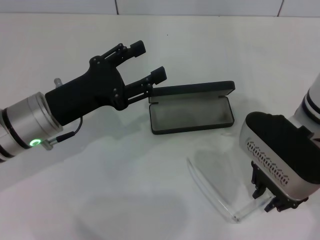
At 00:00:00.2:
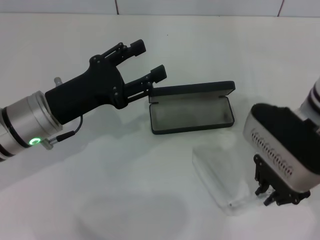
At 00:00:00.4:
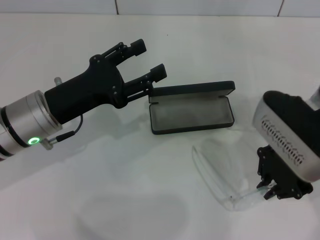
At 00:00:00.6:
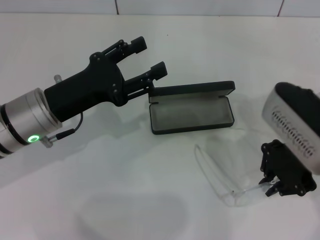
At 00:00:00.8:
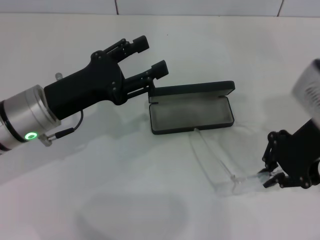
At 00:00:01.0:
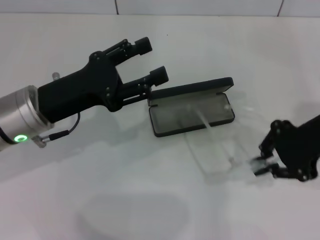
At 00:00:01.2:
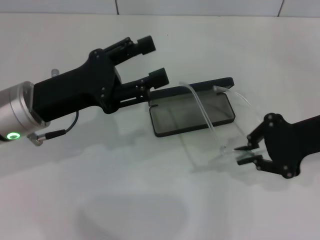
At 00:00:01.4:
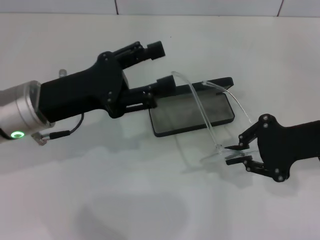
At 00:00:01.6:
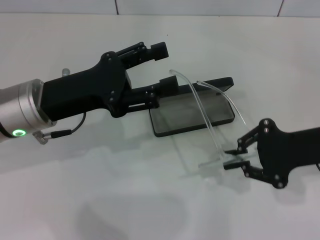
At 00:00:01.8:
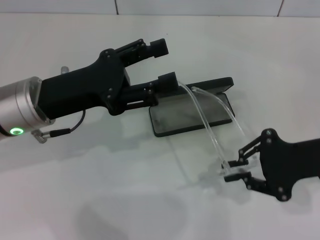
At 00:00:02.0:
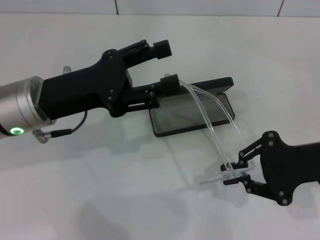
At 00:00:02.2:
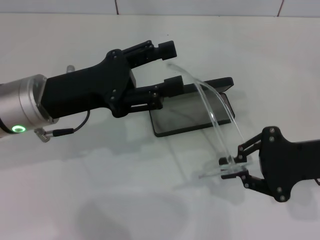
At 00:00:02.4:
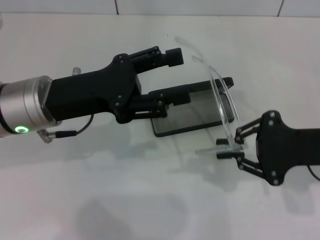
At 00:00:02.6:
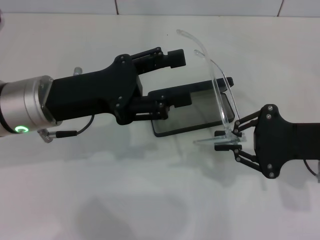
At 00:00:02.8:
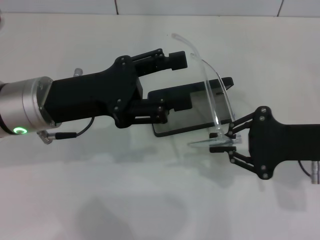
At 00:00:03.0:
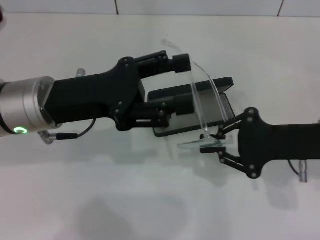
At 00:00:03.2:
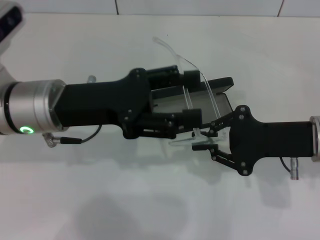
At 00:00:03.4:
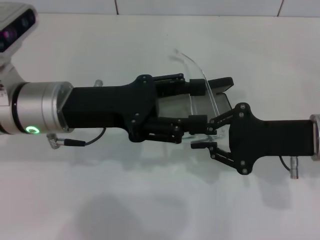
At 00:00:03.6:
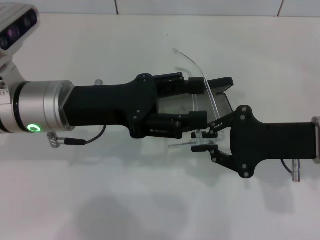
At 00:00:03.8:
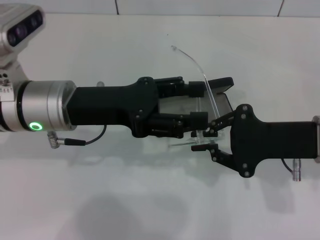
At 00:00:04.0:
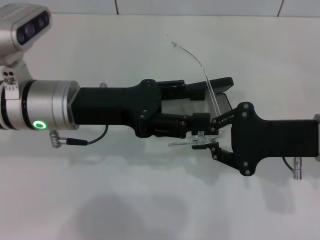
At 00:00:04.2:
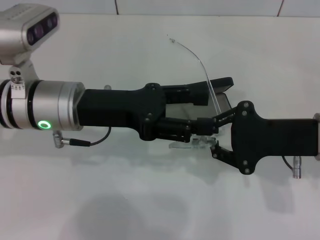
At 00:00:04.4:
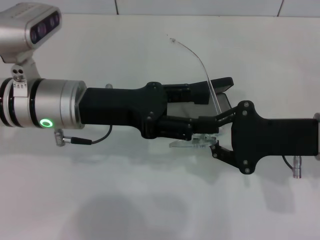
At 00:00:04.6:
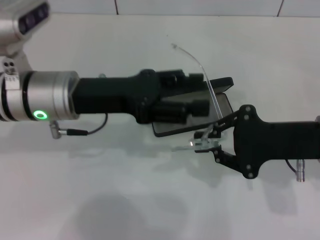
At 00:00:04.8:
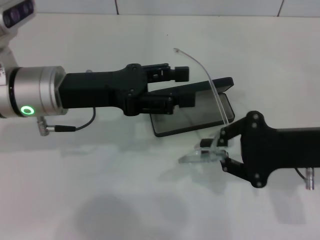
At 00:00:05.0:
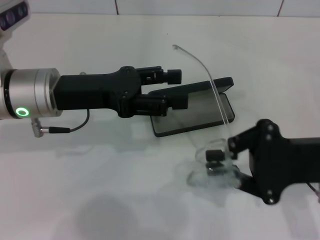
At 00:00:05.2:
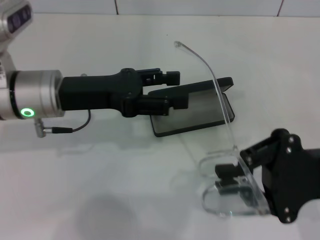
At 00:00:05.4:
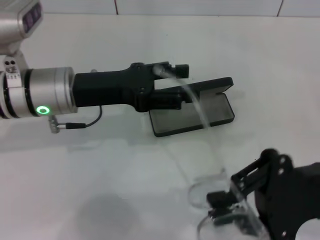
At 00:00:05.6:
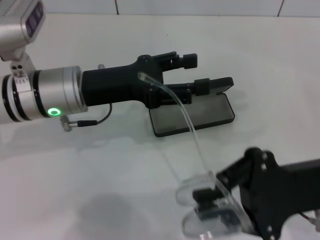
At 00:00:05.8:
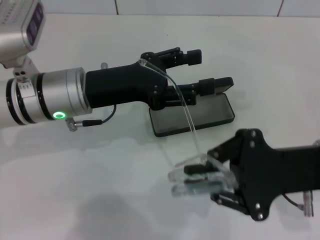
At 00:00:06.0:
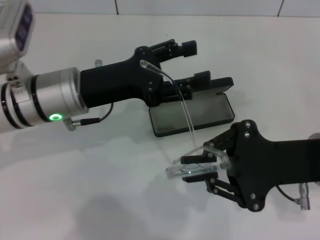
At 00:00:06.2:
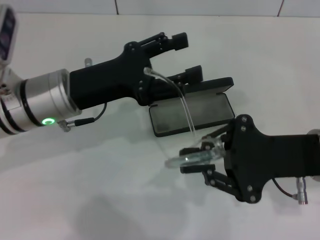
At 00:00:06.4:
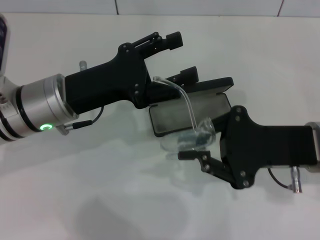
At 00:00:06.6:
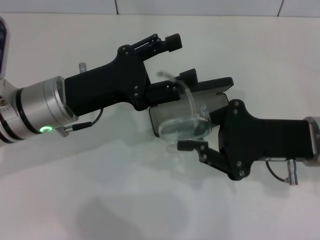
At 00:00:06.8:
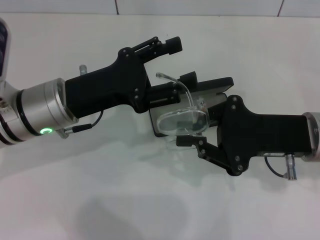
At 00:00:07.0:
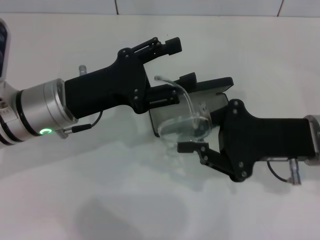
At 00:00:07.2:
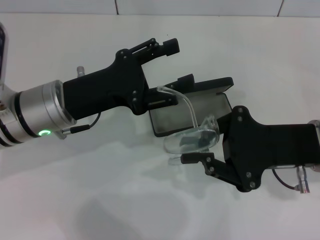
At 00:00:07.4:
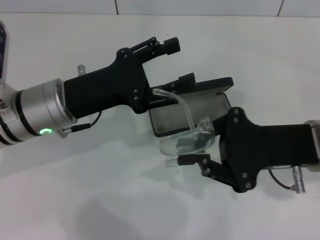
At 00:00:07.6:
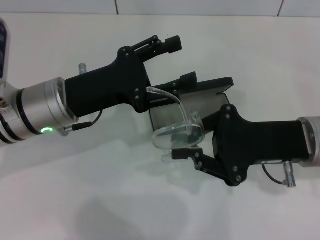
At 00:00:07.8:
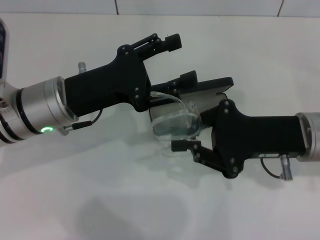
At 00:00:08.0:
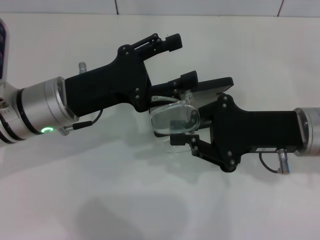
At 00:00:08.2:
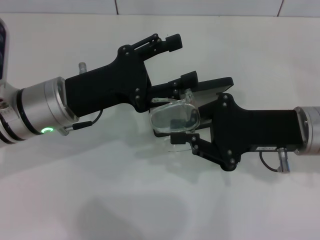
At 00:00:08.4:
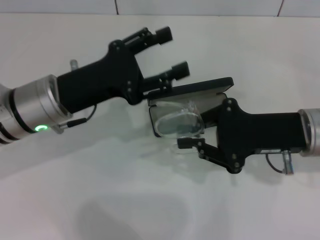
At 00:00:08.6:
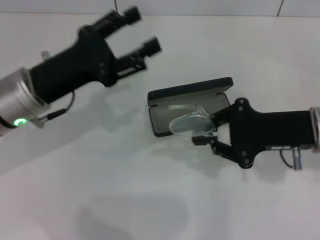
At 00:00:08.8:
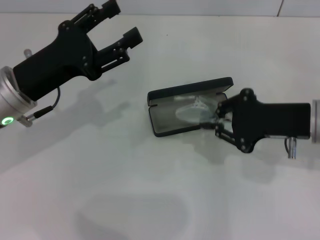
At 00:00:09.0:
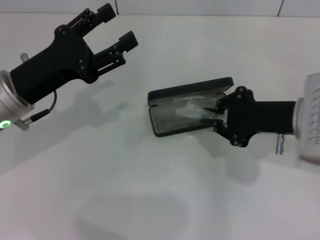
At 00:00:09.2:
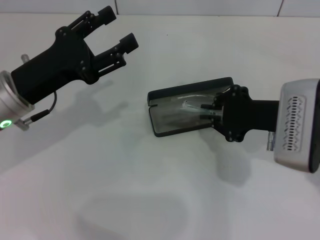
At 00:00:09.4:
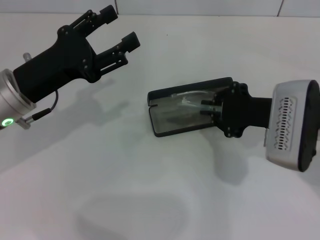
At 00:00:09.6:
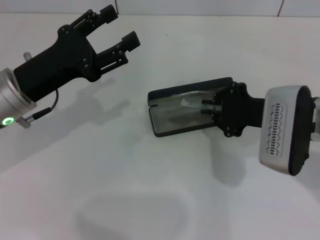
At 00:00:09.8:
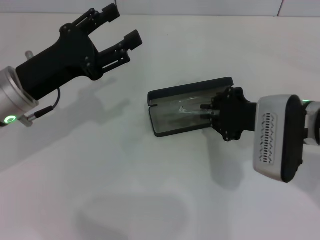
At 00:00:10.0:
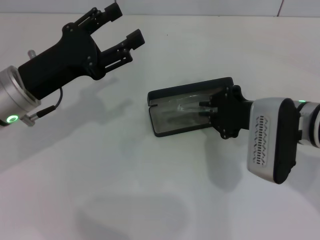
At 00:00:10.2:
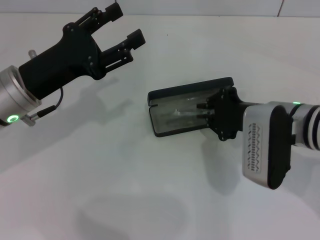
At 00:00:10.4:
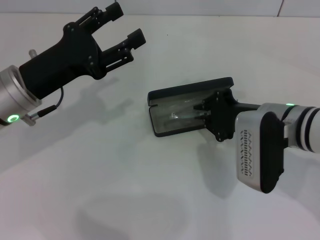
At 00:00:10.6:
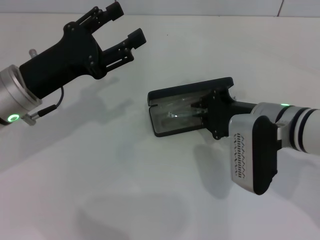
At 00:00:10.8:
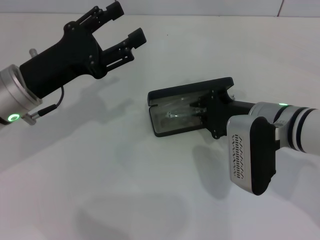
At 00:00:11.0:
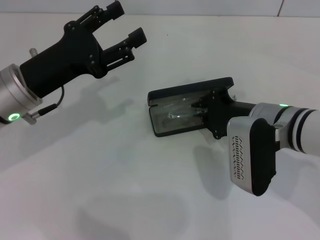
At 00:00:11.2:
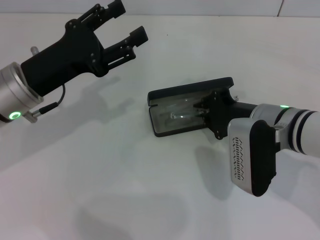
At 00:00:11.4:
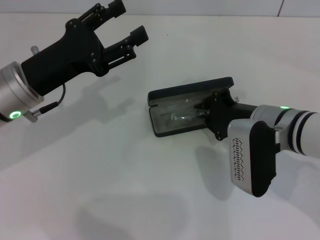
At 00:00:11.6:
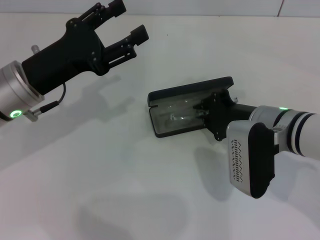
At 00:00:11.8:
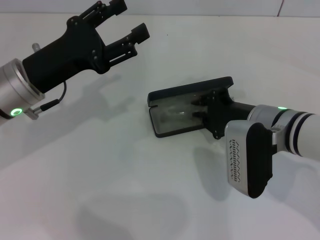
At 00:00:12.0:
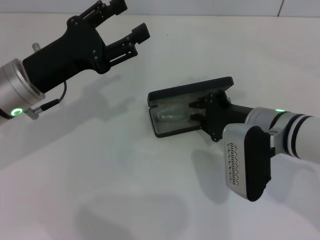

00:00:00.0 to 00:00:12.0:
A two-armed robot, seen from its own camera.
Step, 00:00:00.4 to 00:00:08.2: Fold the frame with your left hand.
00:00:00.0 to 00:00:01.6: The right gripper shifts roughly 10 cm to the right.
00:00:01.6 to 00:00:03.0: The grippers move only a little.
00:00:07.6 to 00:00:09.0: The left gripper shifts about 5 cm to the left.
00:00:09.0 to 00:00:10.4: The right gripper changes place by about 5 cm.
00:00:10.4 to 00:00:12.0: The grippers move only a little.

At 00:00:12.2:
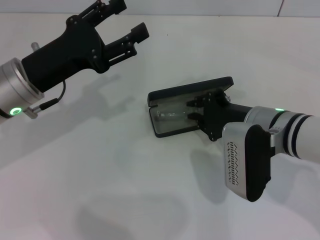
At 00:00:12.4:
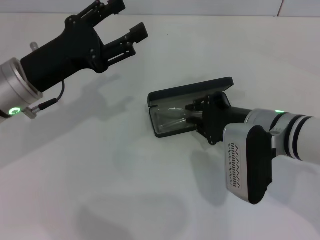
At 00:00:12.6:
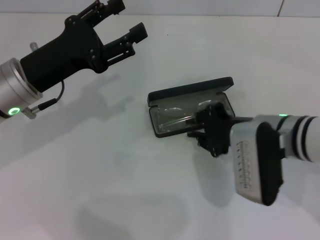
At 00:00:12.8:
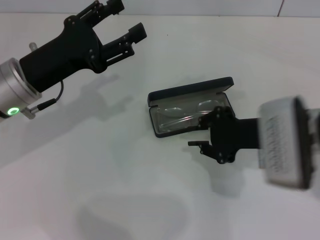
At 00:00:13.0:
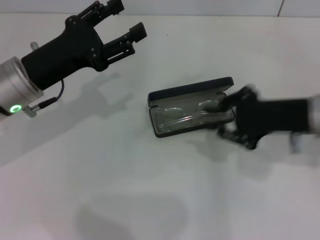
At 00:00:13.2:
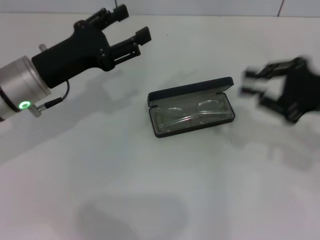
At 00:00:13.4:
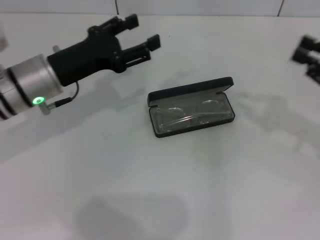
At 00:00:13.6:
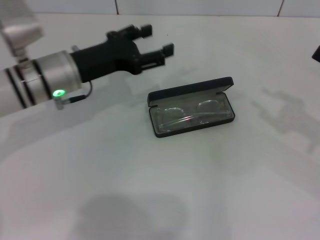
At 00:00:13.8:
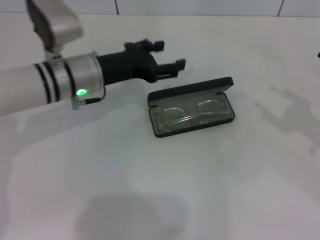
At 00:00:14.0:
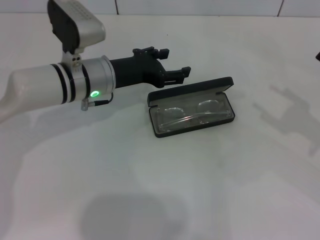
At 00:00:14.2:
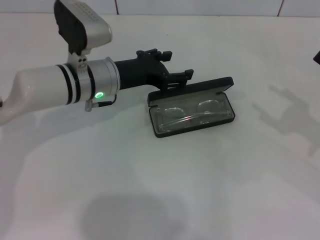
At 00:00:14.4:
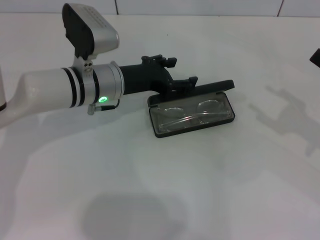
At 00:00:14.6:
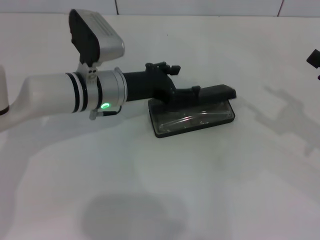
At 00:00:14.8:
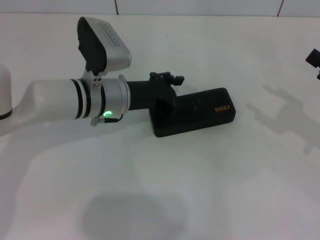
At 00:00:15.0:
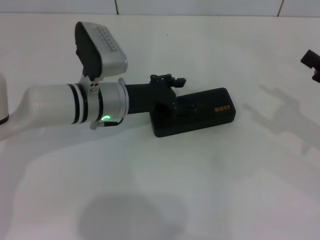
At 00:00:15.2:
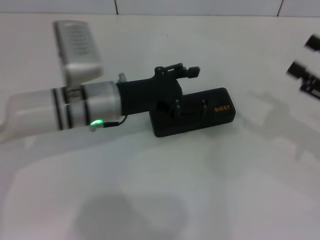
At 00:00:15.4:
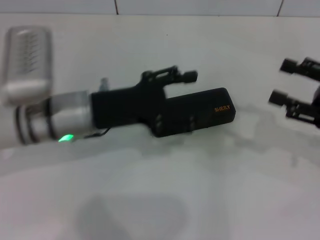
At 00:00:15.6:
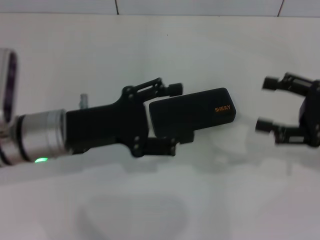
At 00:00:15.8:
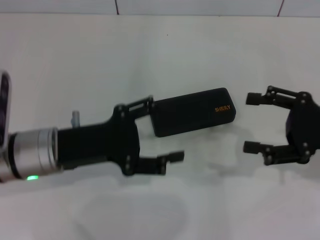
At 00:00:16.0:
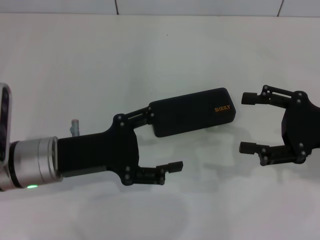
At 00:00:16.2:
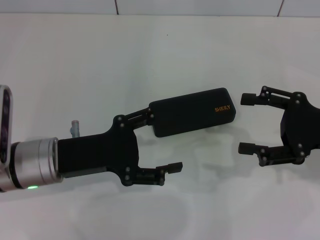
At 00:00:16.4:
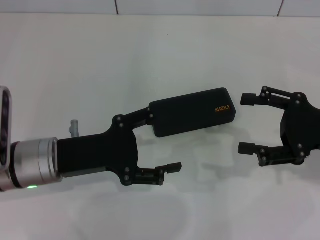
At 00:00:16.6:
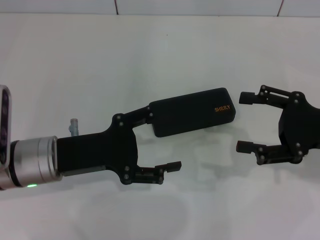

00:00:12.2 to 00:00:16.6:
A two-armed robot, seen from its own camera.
Step, 00:00:12.6 to 00:00:15.0: Close the glasses case with your left hand.
00:00:12.2 to 00:00:13.6: The left gripper moves approximately 5 cm; the right gripper moves to the right, some 20 cm.
00:00:13.6 to 00:00:15.2: The left gripper changes place by some 5 cm. Meanwhile the right gripper opens.
00:00:15.2 to 00:00:16.6: The left gripper goes roughly 10 cm backward and to the left.
